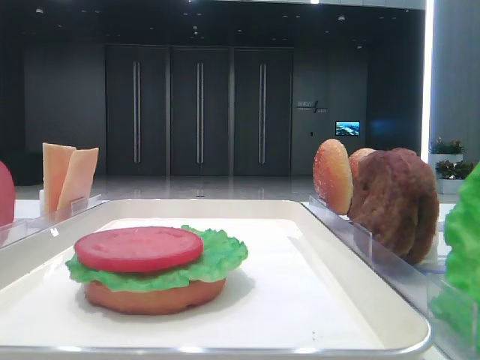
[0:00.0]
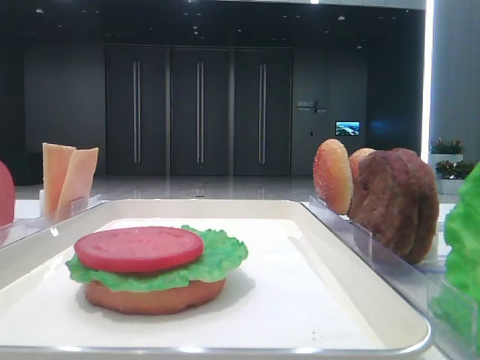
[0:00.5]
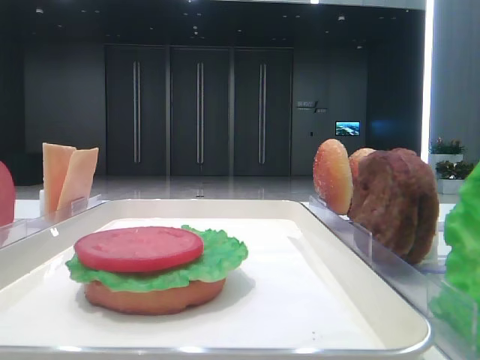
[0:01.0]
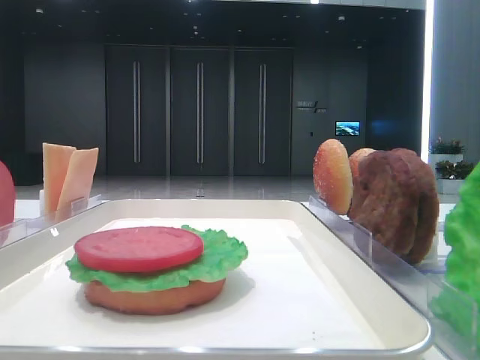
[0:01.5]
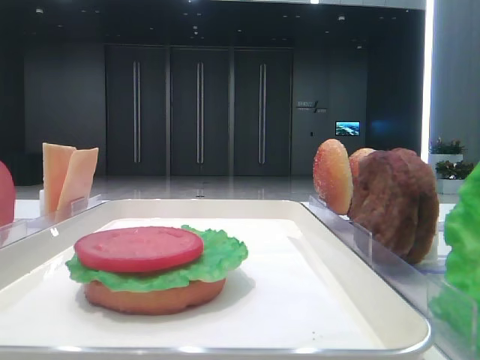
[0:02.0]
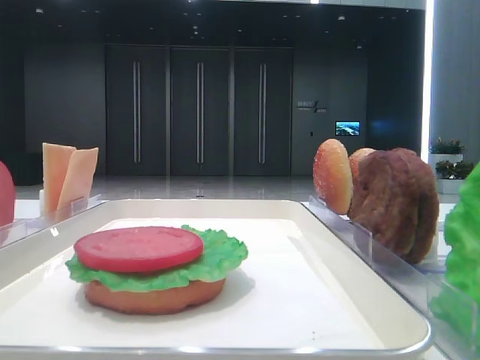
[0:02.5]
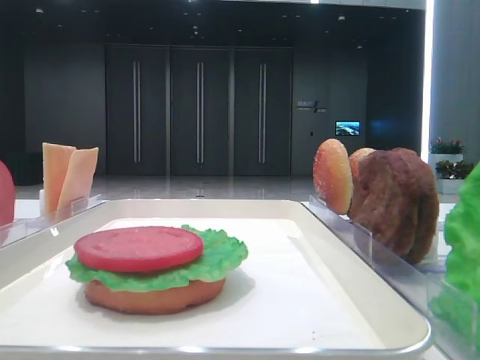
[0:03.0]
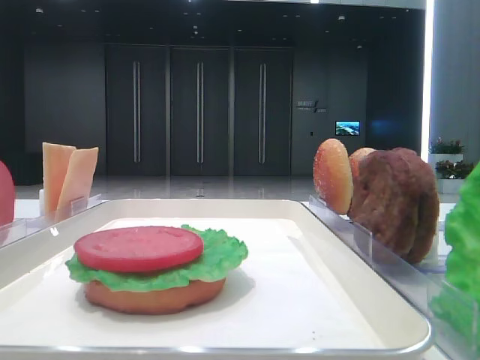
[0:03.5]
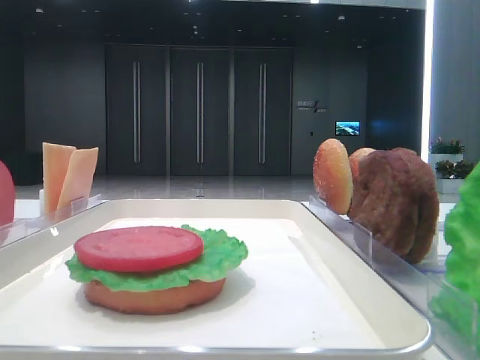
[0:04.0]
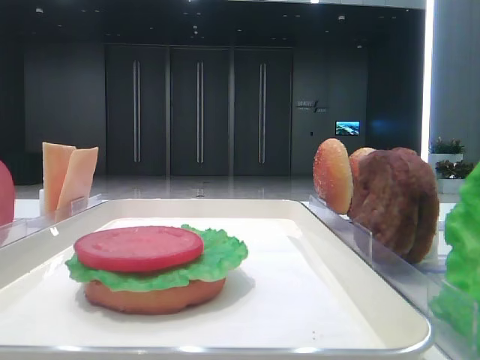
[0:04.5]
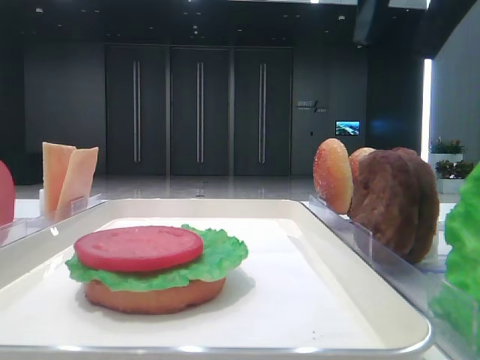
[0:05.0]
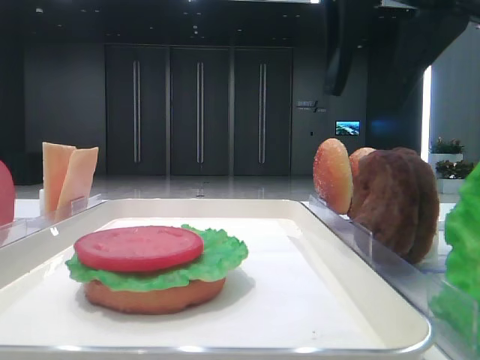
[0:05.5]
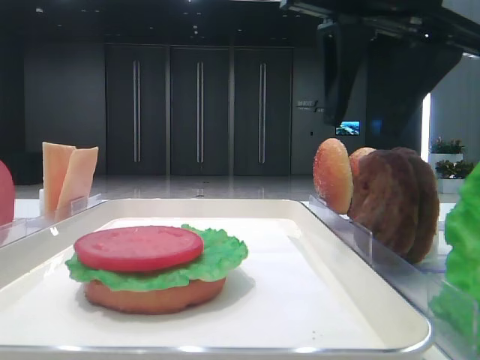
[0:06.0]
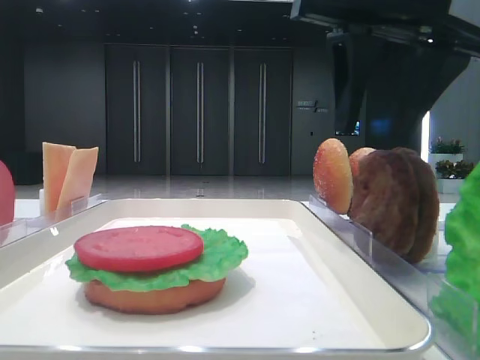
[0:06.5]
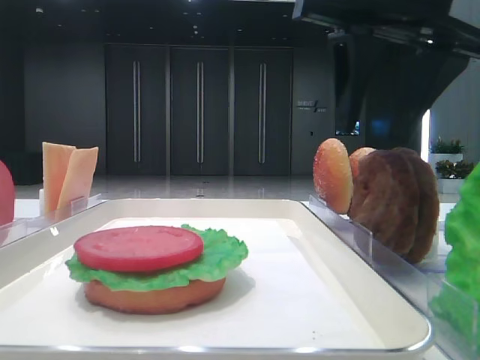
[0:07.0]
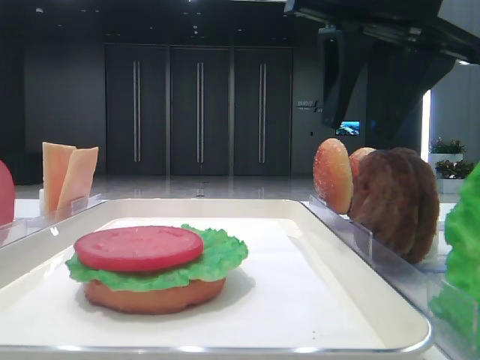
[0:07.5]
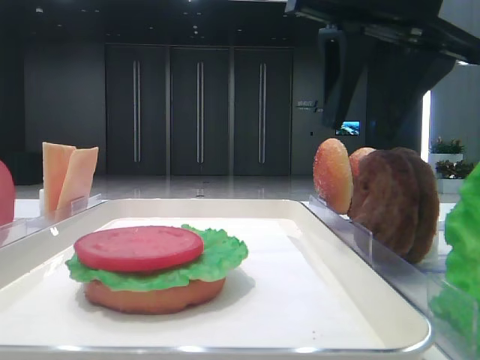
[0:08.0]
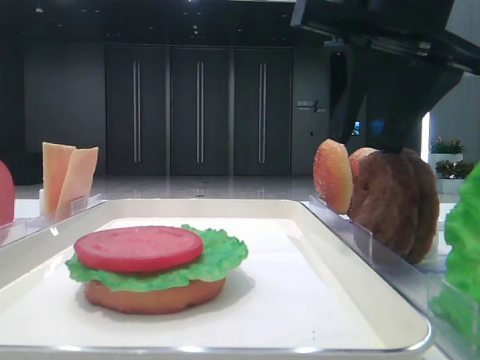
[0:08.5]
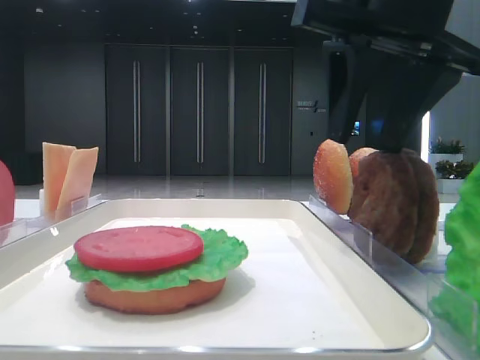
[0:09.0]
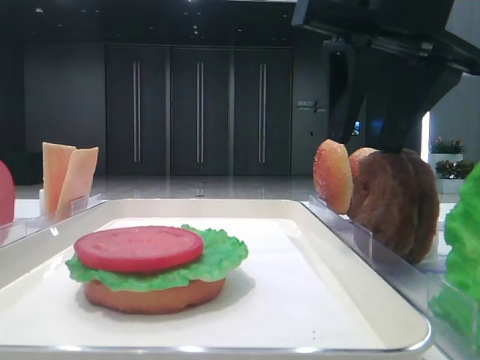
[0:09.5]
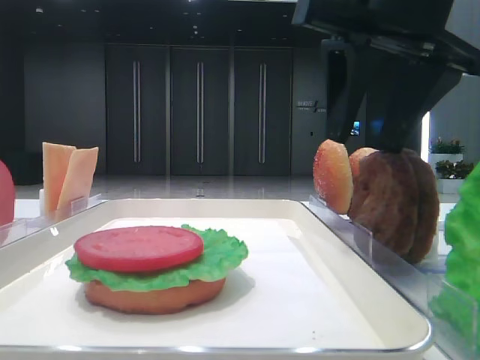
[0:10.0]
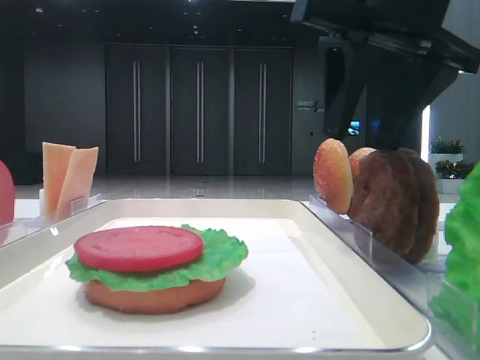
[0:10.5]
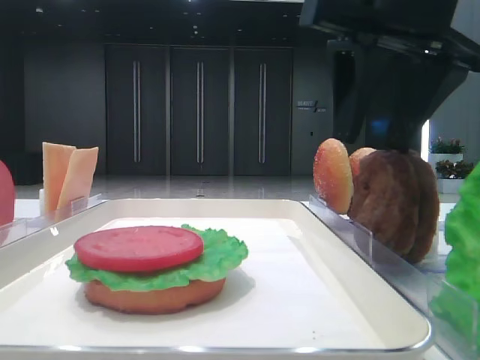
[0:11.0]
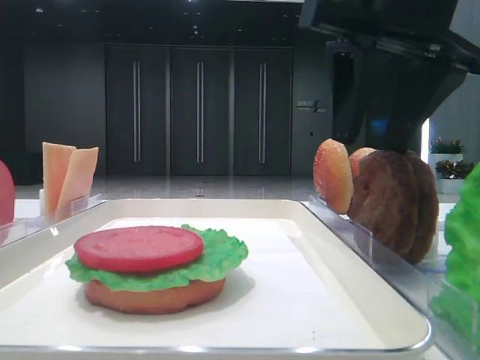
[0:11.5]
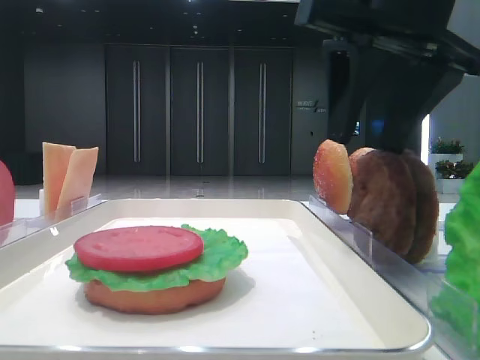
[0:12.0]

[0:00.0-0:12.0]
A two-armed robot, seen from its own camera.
0:04.0 to 0:06.0: The right gripper goes approximately 20 cm to the left, forward and downward.
0:06.0 to 0:08.0: The grippers move only a little.
0:08.0 to 0:10.0: Both grippers stay put.
0:10.0 to 0:12.0: Neither gripper changes place.

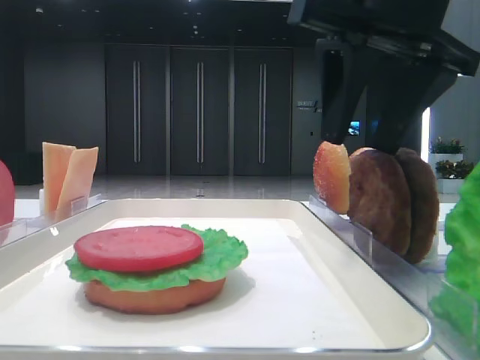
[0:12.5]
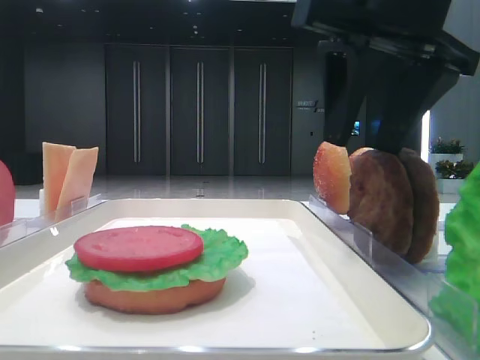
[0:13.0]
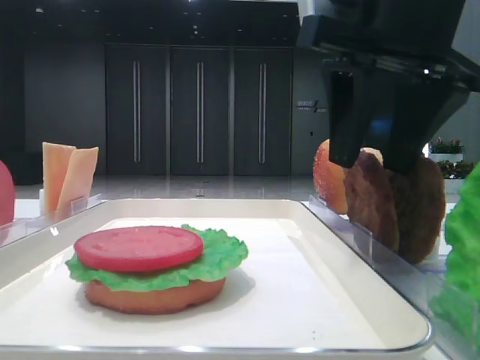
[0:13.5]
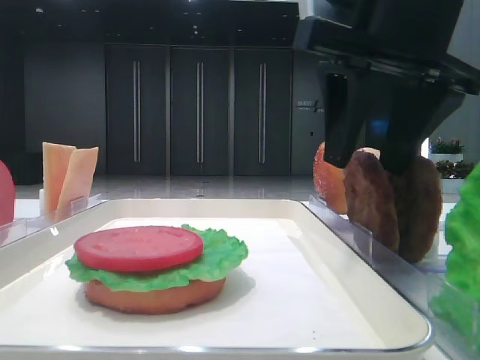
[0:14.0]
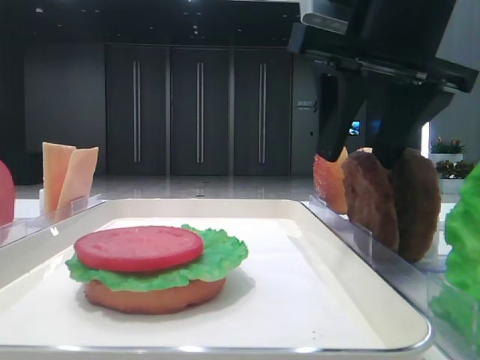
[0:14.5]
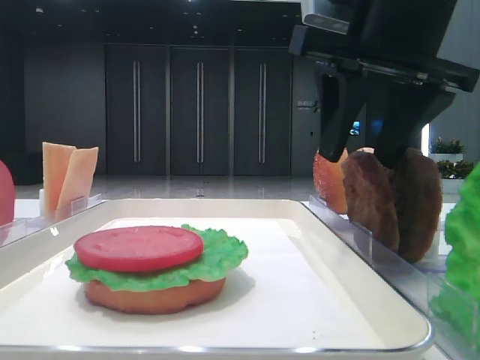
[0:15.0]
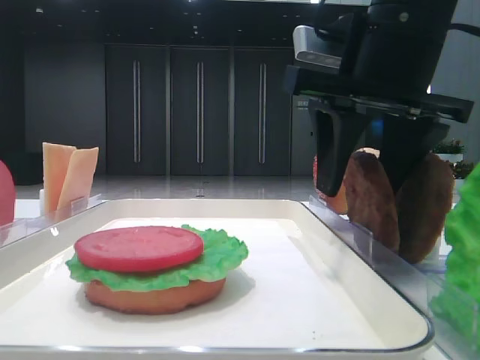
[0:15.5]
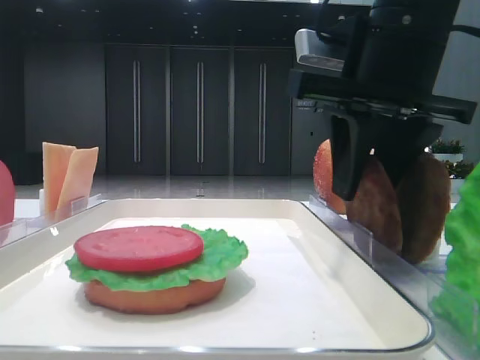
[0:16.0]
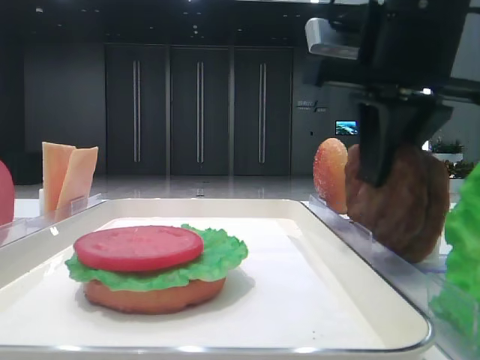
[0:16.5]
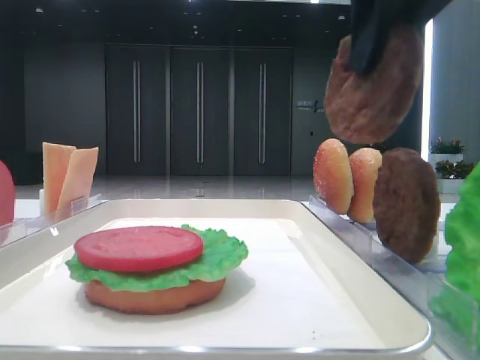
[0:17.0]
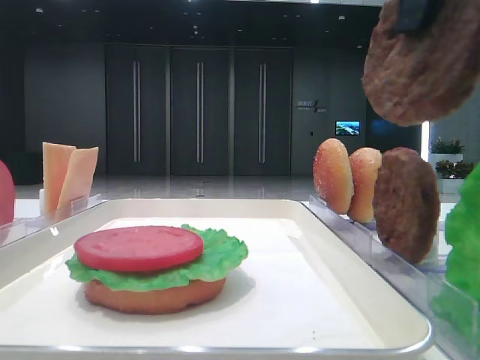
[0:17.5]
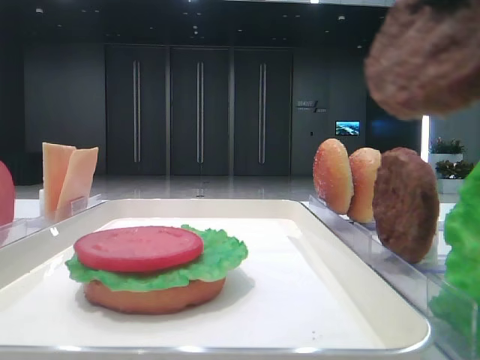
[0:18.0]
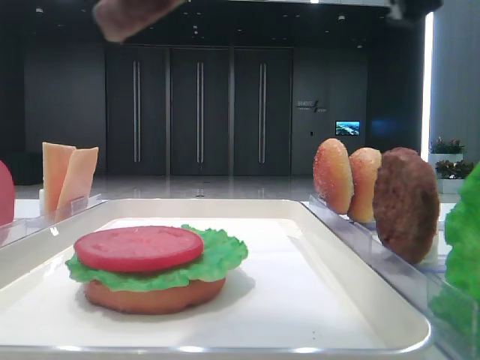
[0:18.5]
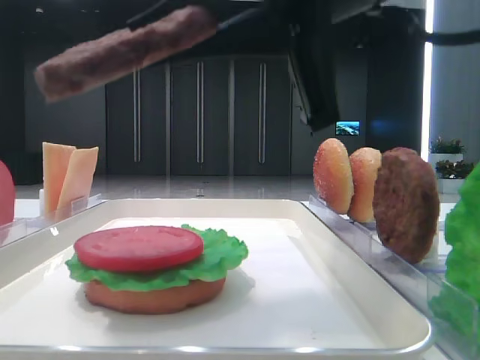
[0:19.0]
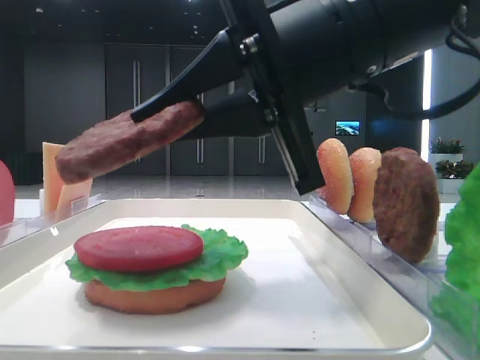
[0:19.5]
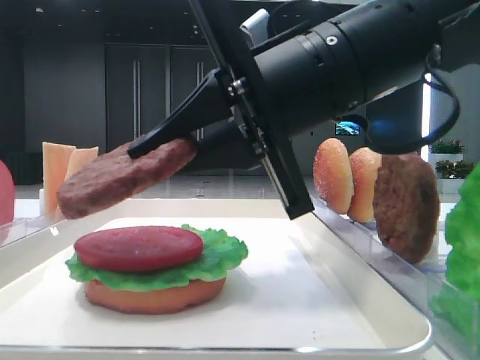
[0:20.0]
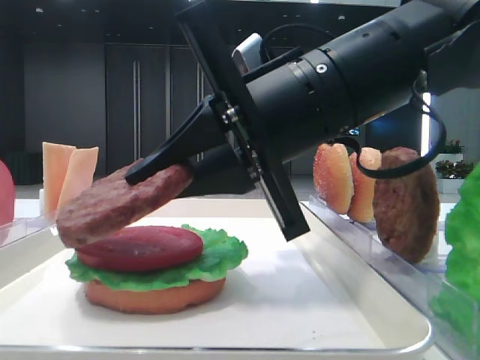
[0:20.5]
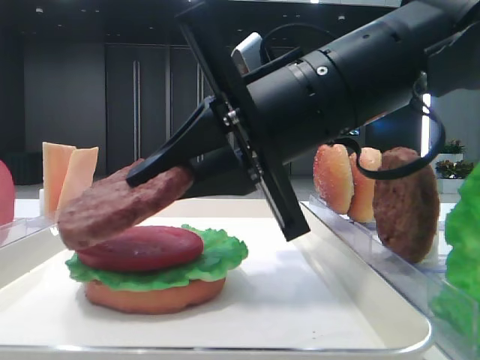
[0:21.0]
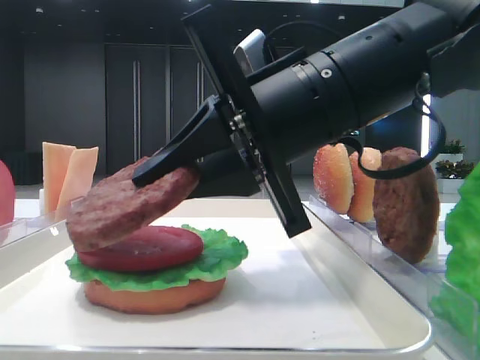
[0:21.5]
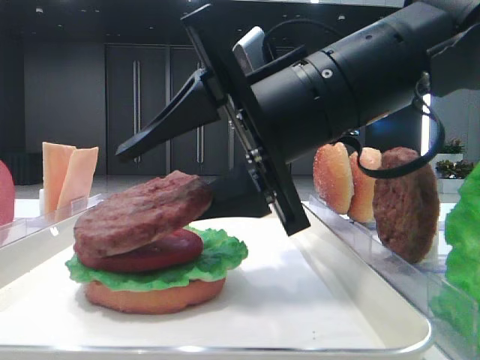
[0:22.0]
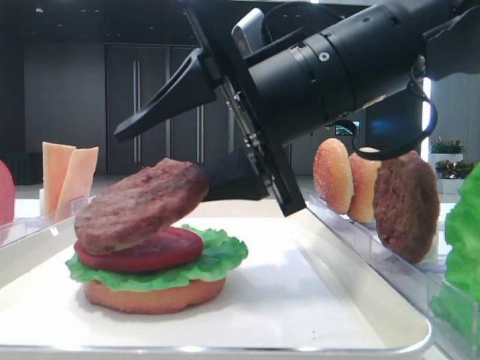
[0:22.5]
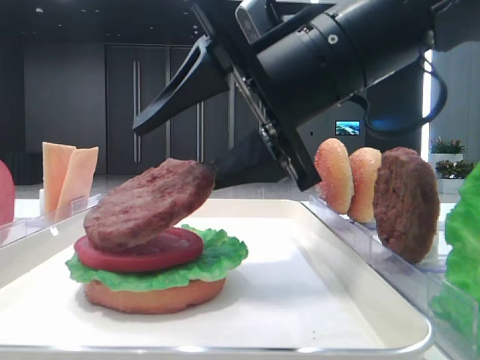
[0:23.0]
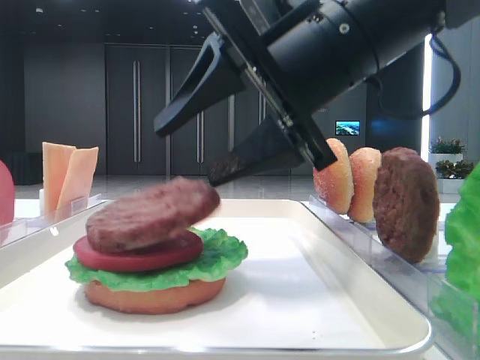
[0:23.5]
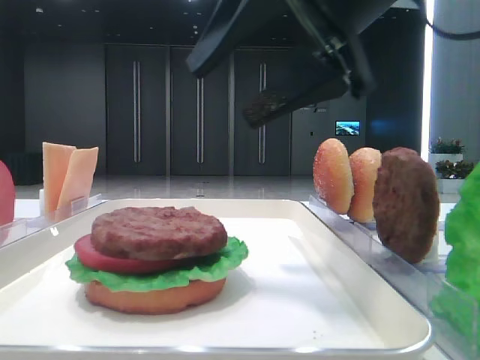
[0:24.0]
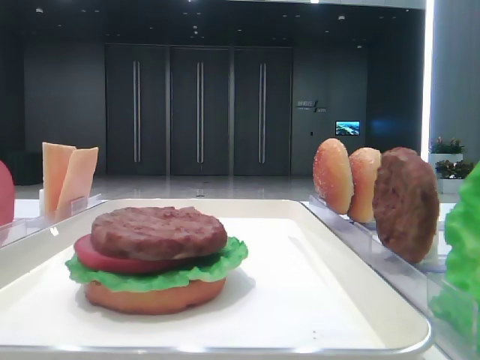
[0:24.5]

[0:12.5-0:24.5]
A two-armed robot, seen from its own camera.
Step, 0:12.5 to 0:16.0: Grab the patty with the right hand.
Step, 0:16.5 to 0:23.5: Place the patty on the tomato slice with the right hand.
0:12.5 to 0:14.5: The grippers make only small movements.
0:14.5 to 0:16.5: The right gripper closes its fingers.
0:16.5 to 0:18.5: The right gripper travels backward and upward by roughly 10 cm.
0:18.5 to 0:20.5: The right gripper travels downward and forward by approximately 15 cm.
0:20.5 to 0:22.5: The right gripper opens its fingers.
0:22.5 to 0:24.5: The right gripper goes some 25 cm to the right and upward.

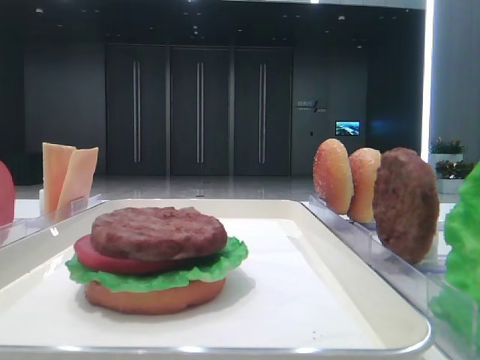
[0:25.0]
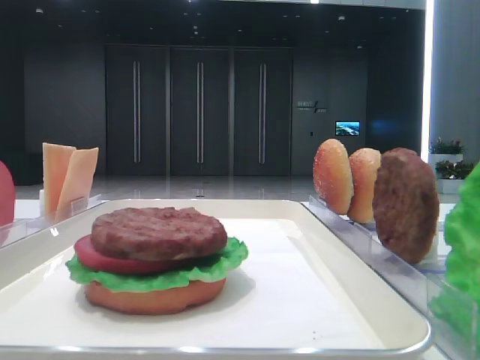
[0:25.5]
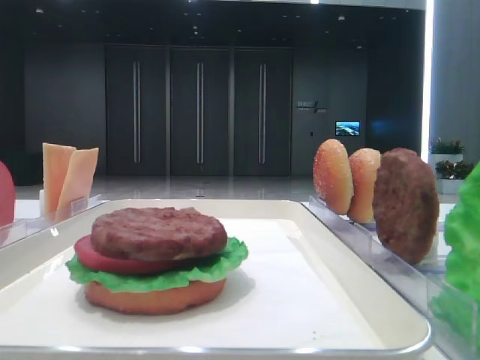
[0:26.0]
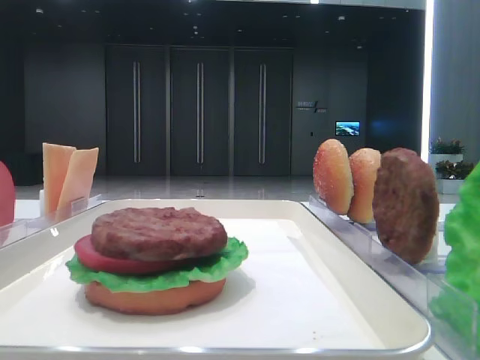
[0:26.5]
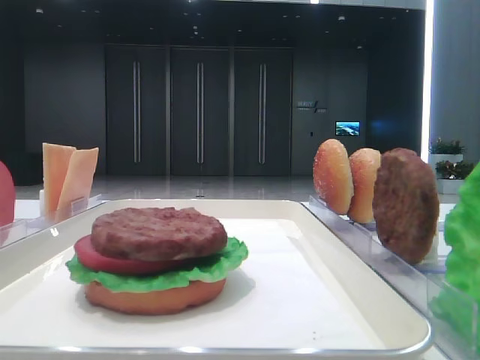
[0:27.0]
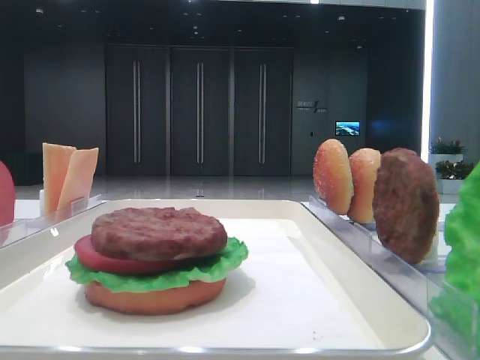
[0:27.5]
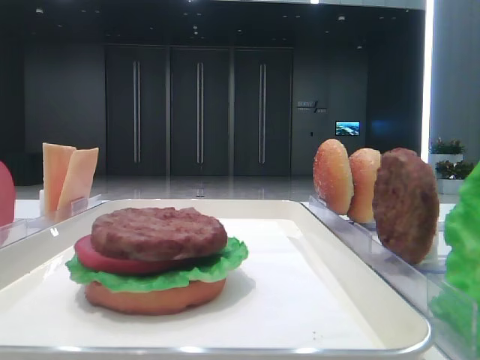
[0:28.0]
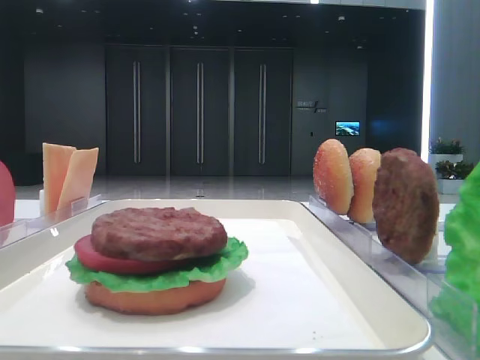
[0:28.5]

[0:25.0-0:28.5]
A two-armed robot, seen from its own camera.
0:27.0 to 0:28.5: The two grippers keep their place.
